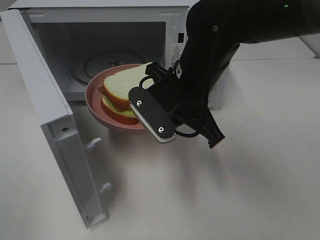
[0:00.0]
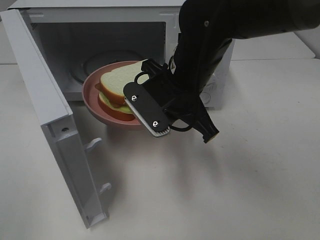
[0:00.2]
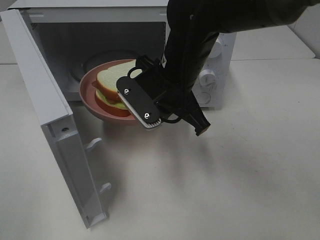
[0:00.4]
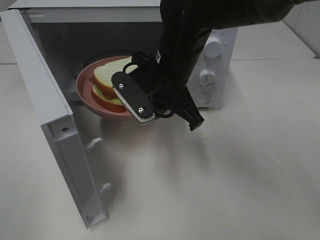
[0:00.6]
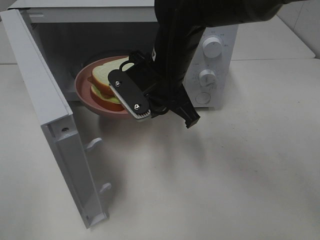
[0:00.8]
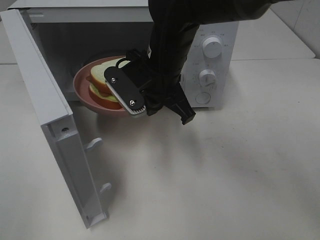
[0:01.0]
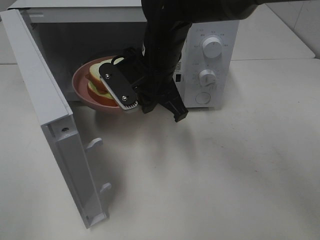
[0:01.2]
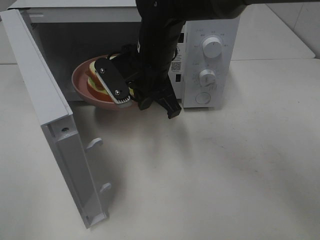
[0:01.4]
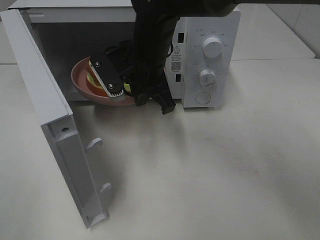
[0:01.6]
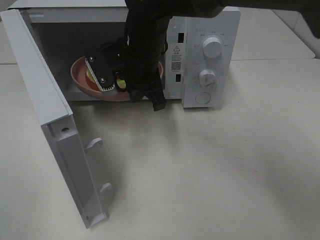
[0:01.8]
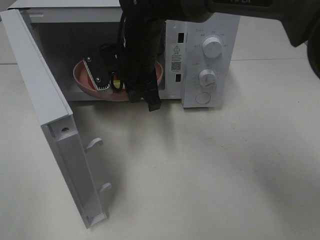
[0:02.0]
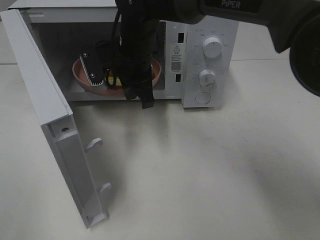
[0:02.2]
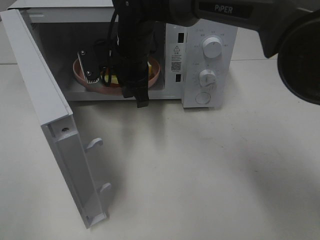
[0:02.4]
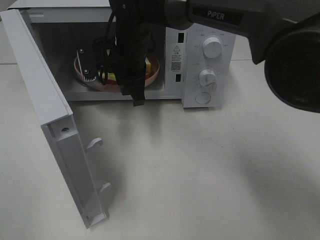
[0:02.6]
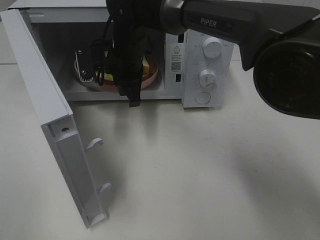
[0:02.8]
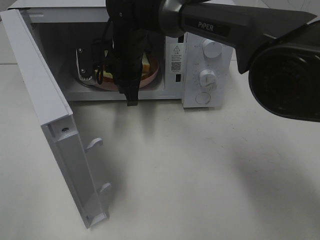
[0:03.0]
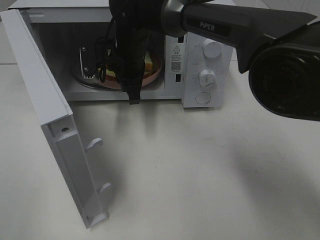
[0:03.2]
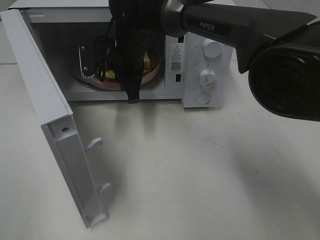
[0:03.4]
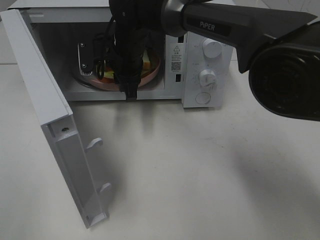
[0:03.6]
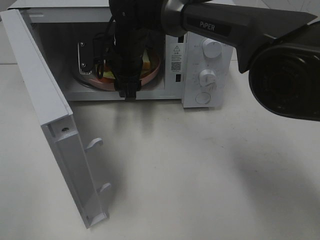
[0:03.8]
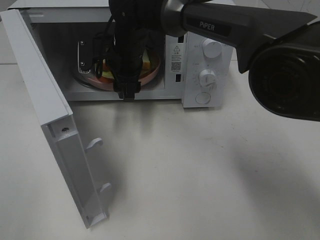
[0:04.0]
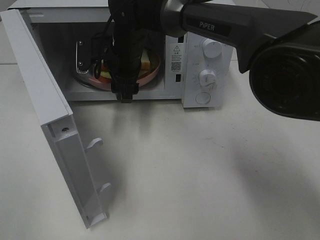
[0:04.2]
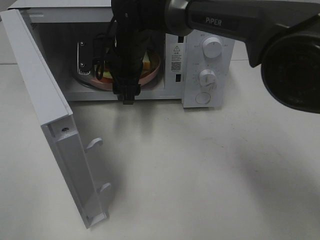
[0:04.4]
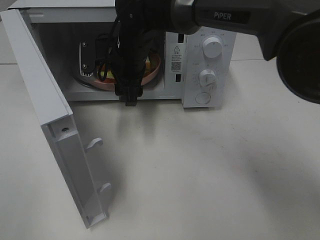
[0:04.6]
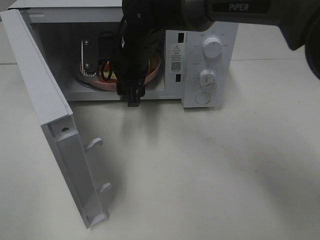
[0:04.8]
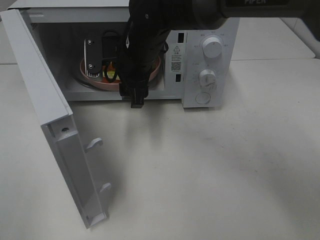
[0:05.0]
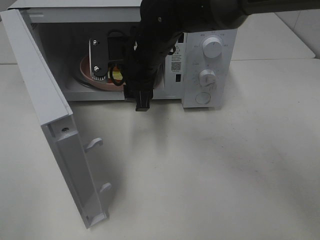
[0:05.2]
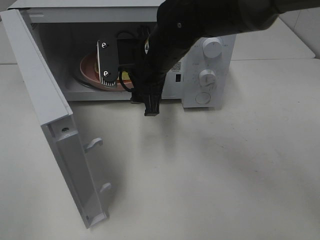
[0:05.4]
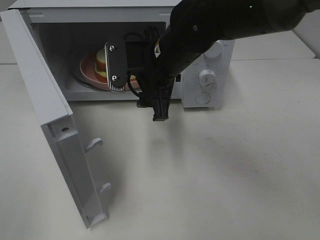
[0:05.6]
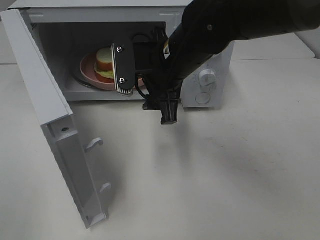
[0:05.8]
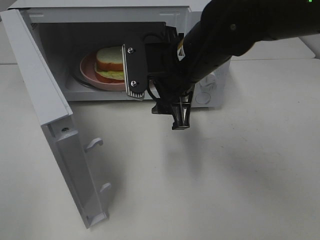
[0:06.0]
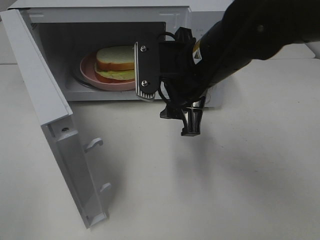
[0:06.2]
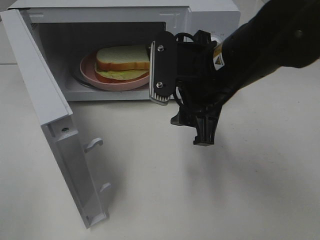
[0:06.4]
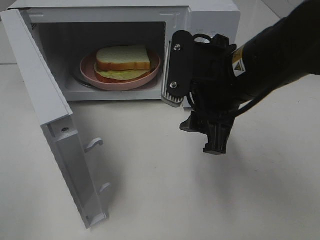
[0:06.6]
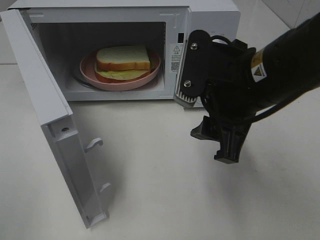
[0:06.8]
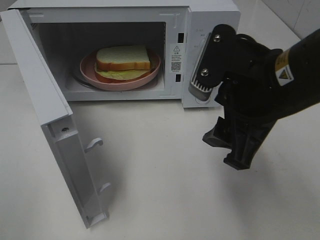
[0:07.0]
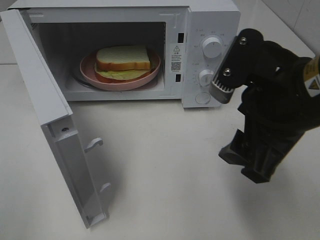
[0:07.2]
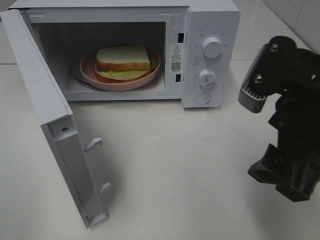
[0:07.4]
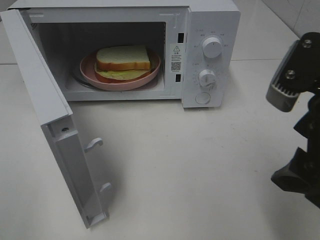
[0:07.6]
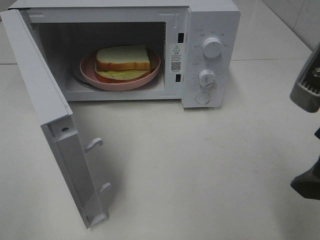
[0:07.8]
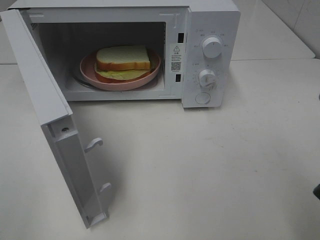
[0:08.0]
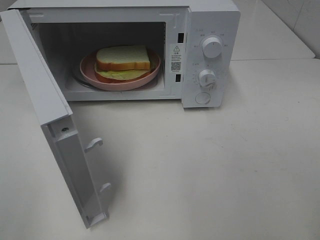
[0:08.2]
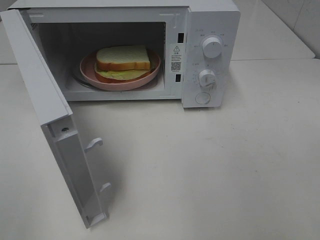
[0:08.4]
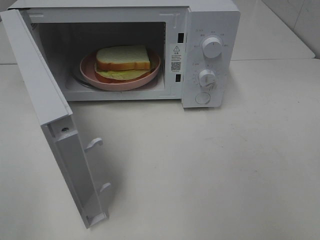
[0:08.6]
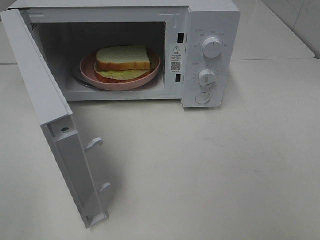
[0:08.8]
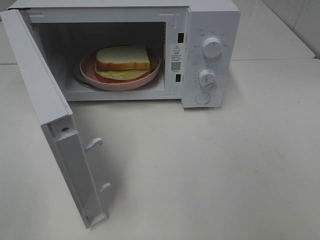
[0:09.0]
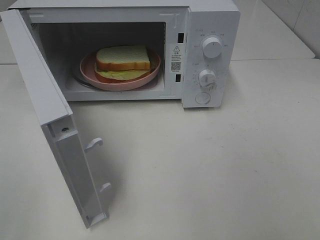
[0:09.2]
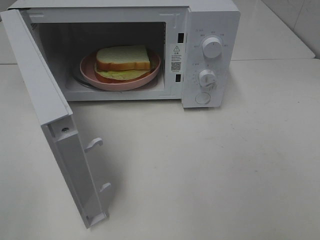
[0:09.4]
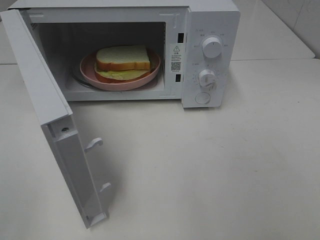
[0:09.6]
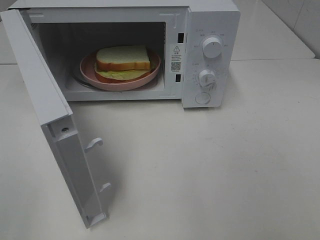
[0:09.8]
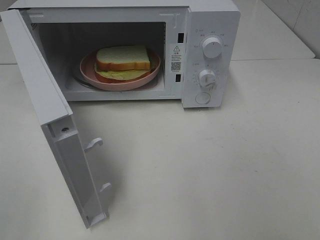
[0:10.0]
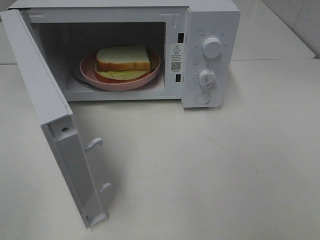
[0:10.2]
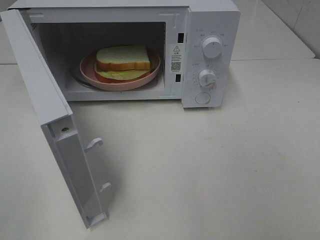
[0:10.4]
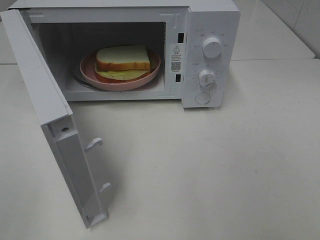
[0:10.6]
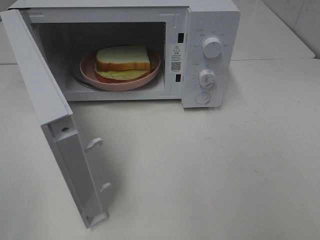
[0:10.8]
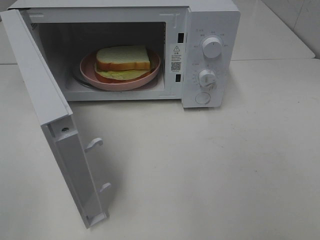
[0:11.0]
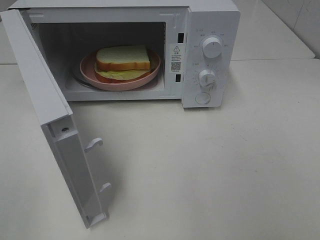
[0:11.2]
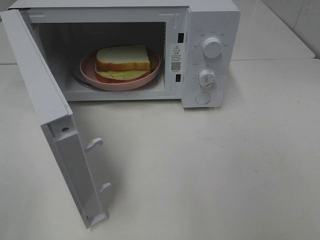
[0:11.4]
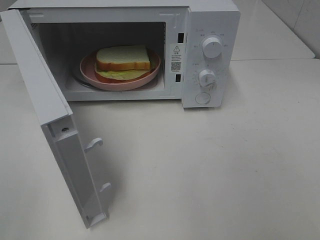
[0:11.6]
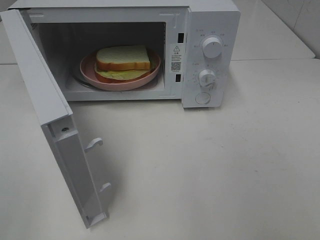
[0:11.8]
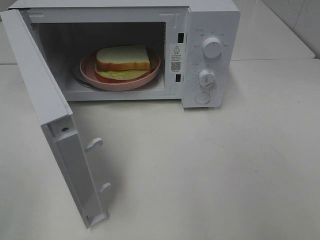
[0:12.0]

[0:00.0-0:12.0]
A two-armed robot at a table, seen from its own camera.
Task of the whole recording: Heat Sandwich.
Step, 0:00.0 to 0:05.4: Right hand: place the plate in the microwave.
0:00.0 to 0:01.6: The right gripper goes approximately 10 cm forward and to the left.
0:01.6 to 0:03.0: The right gripper heads forward, covering some 5 cm.
0:03.0 to 0:04.4: The right gripper opens up.
0:04.4 to 0:06.0: The right gripper travels backward and to the right by approximately 15 cm.
0:06.0 to 0:07.6: The right gripper is displaced backward and to the right by some 20 cm.
0:07.6 to 0:09.0: The right gripper goes roughly 15 cm backward and to the right.

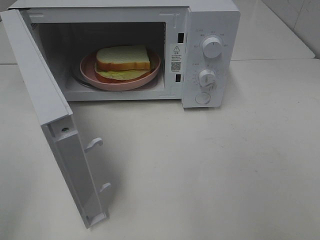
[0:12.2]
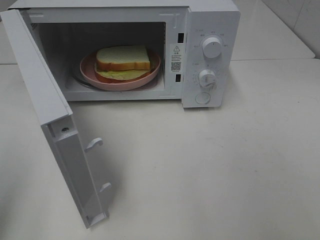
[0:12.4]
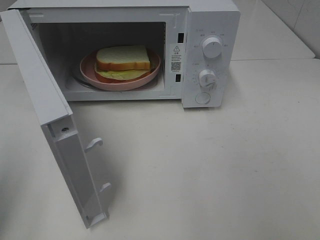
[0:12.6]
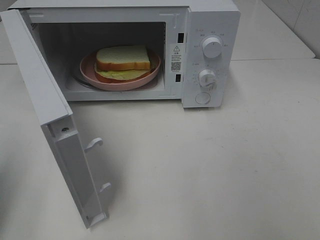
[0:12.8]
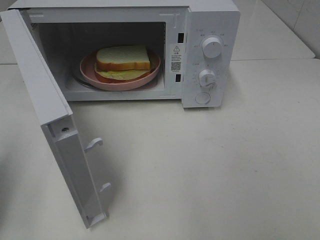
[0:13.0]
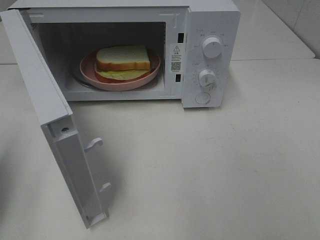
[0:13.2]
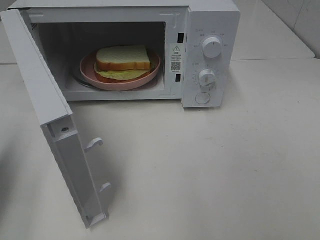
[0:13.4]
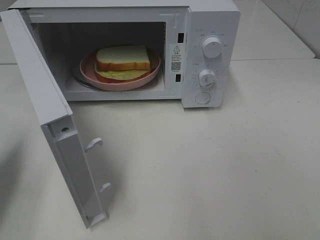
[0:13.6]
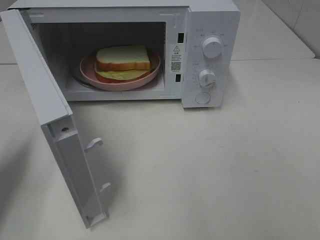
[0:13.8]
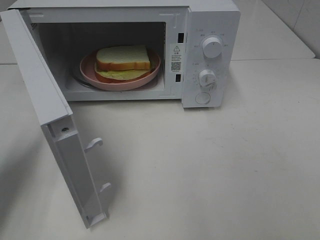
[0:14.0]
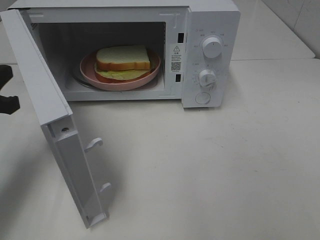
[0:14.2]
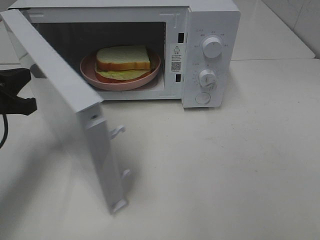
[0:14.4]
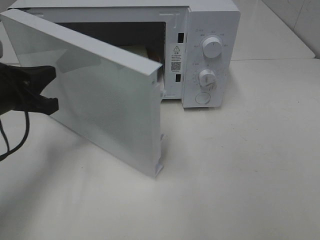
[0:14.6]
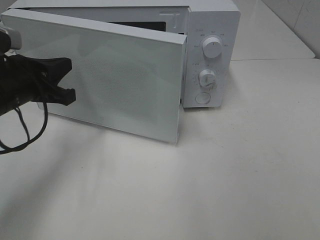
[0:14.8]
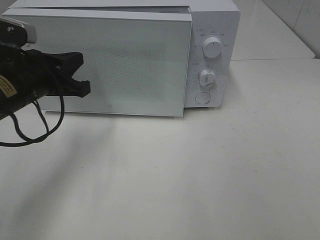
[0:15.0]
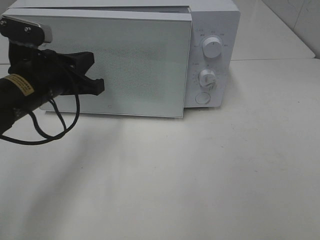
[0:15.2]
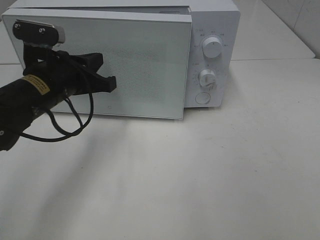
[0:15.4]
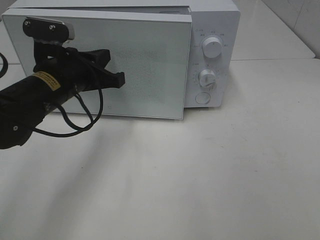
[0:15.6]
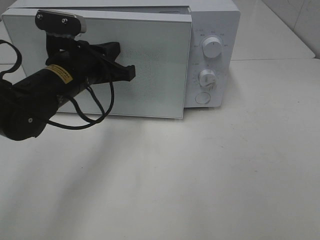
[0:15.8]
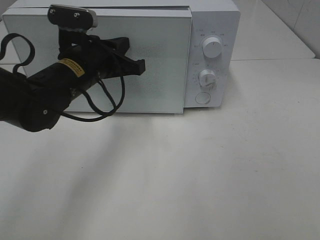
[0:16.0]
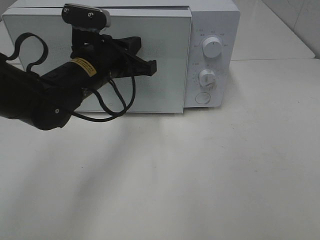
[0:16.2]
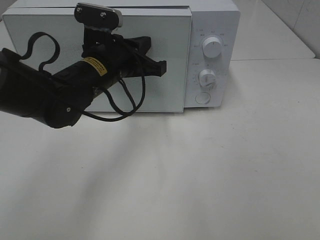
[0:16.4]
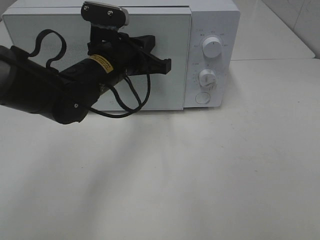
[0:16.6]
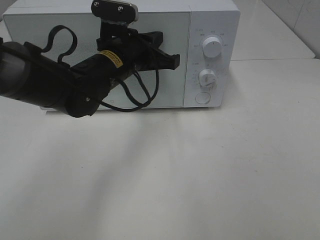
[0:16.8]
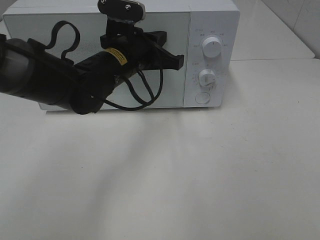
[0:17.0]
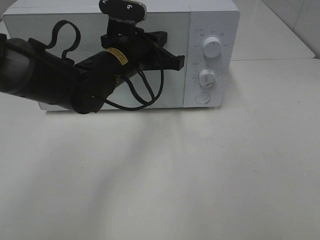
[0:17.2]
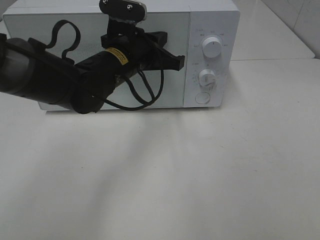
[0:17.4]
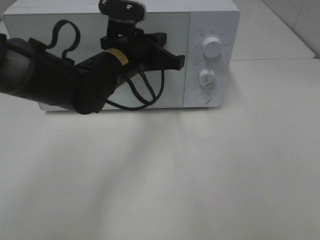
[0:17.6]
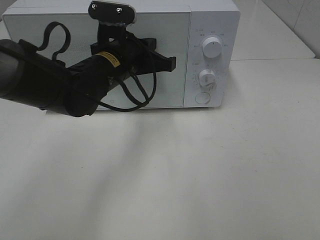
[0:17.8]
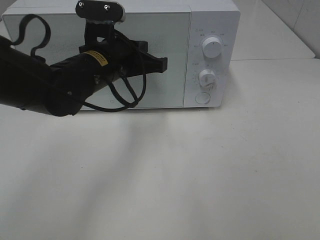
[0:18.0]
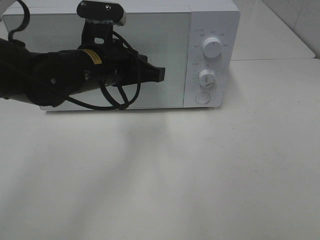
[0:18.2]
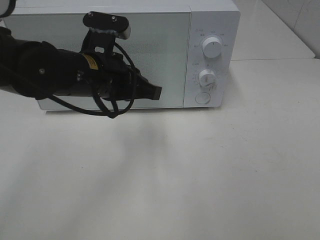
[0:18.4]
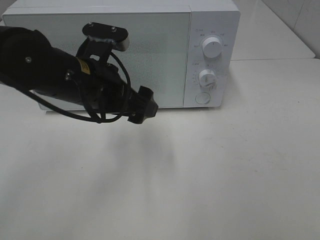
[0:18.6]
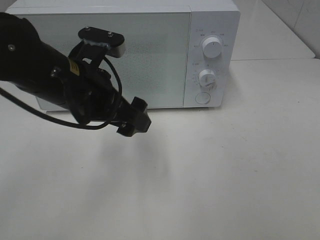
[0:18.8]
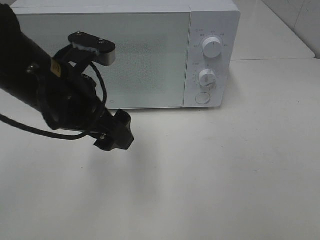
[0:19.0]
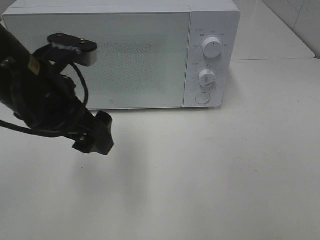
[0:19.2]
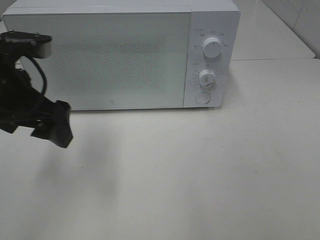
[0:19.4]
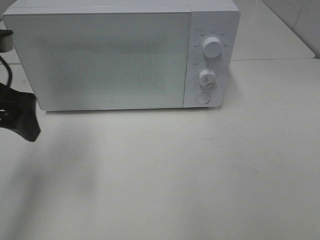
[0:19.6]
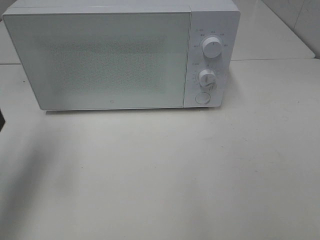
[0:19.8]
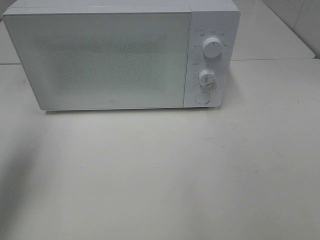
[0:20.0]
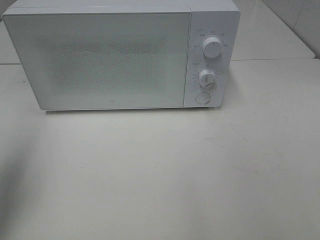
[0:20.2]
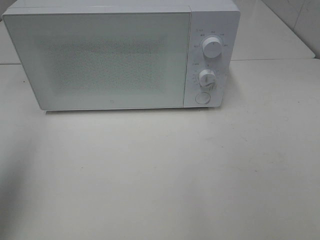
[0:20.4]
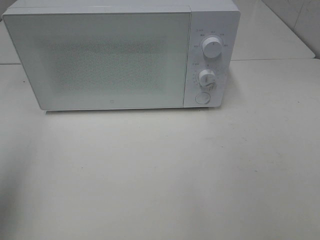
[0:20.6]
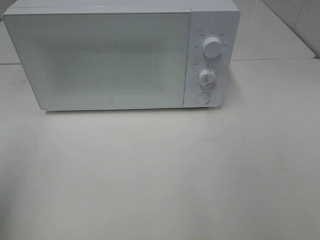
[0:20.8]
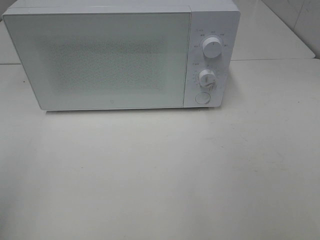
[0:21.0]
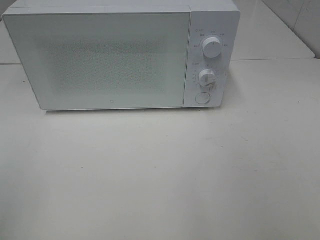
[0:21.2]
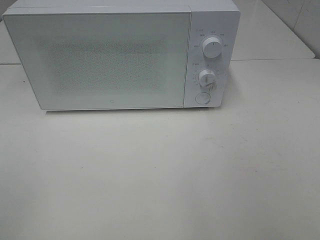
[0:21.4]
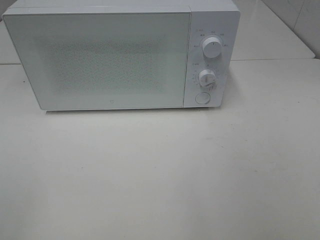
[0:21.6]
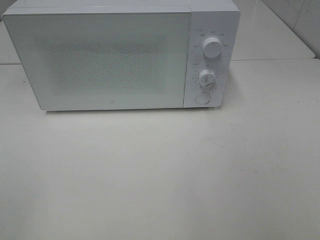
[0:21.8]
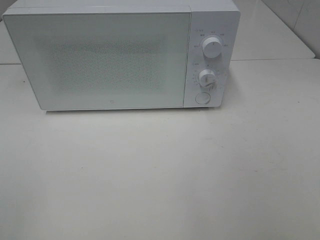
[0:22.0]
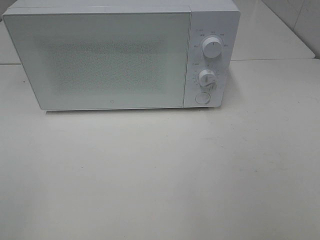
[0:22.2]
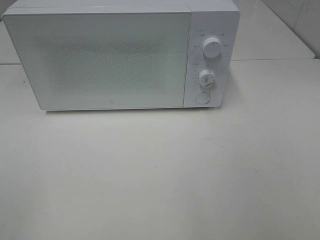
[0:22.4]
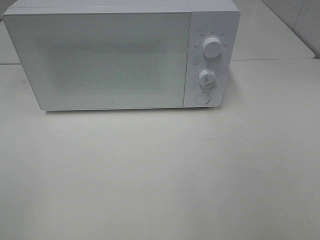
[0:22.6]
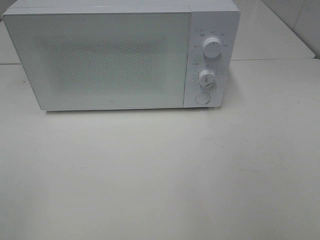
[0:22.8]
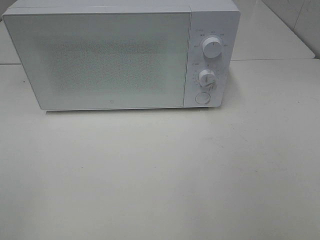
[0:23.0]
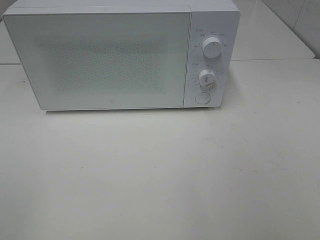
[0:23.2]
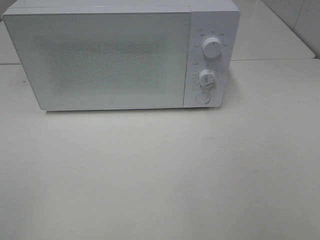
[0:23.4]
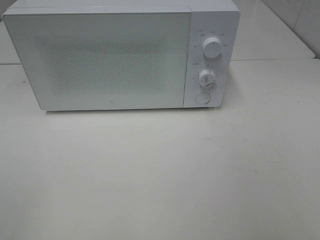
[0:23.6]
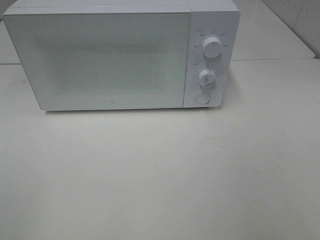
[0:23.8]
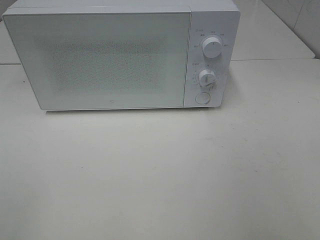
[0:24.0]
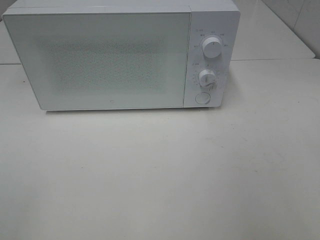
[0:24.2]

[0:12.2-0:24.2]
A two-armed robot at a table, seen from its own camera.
Task of the whole recording: Heat Sandwich.
Step, 0:12.2 to 0:18.2: Left hand: close the microwave door.
0:12.2 to 0:13.8: The left gripper travels forward and downward by some 20 cm, and closes its fingers.
0:13.8 to 0:15.2: The left gripper heads to the right and forward, covering roughly 15 cm.
0:15.2 to 0:16.6: The left gripper moves to the right, some 10 cm.
0:16.6 to 0:18.2: There are only small adjustments of the grippers.
0:18.2 to 0:19.8: The left gripper goes approximately 20 cm to the left, and opens up.
0:19.8 to 0:21.2: The left gripper heads backward, covering roughly 20 cm.
